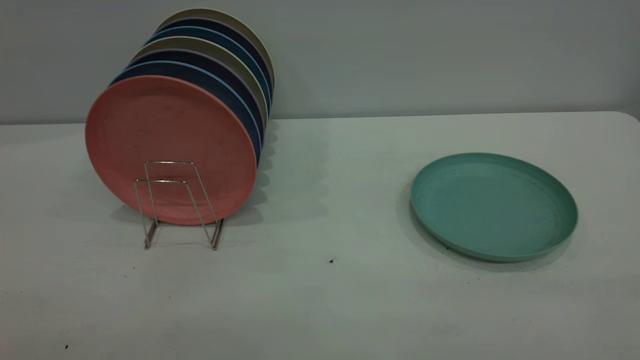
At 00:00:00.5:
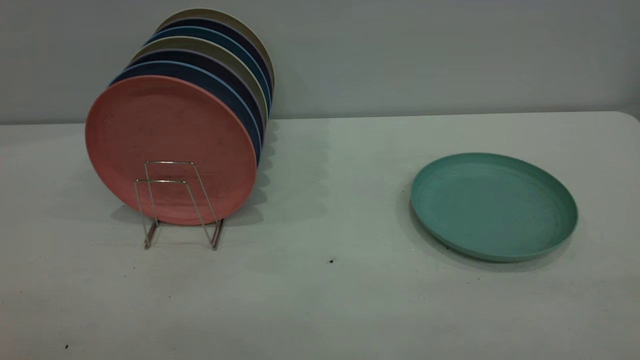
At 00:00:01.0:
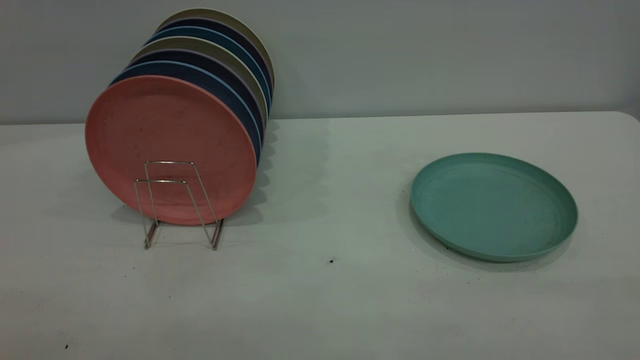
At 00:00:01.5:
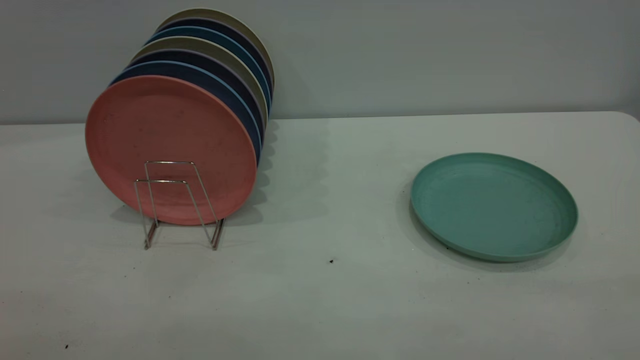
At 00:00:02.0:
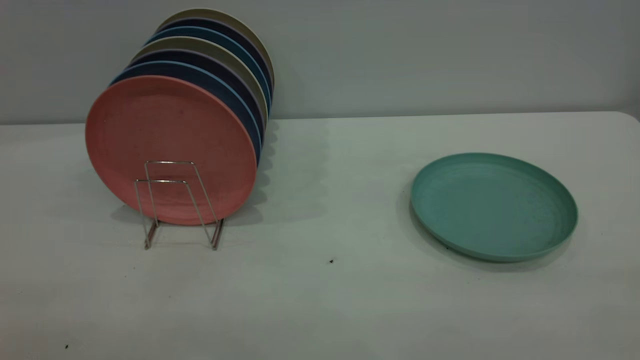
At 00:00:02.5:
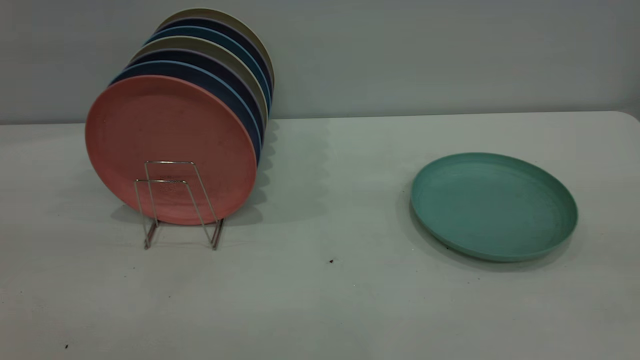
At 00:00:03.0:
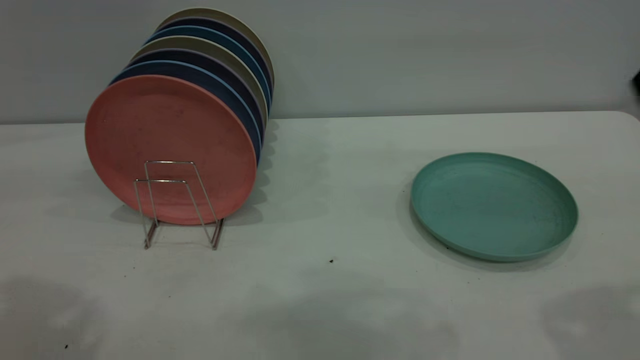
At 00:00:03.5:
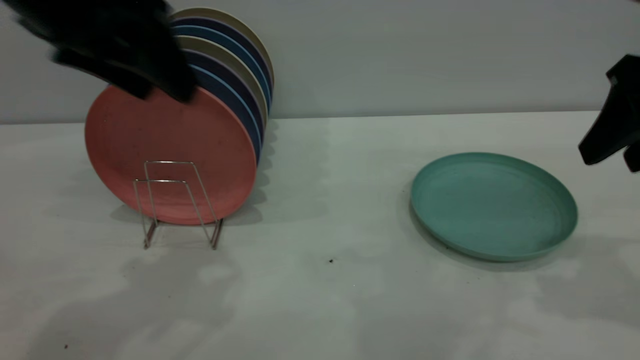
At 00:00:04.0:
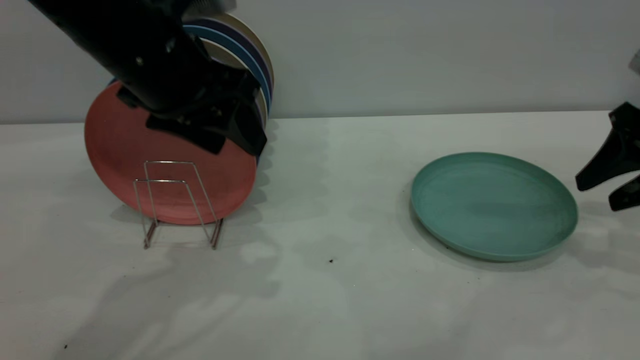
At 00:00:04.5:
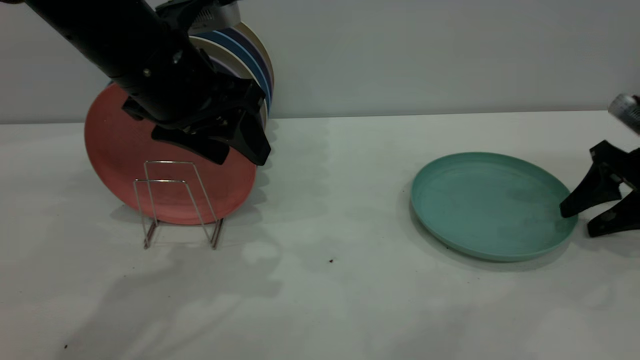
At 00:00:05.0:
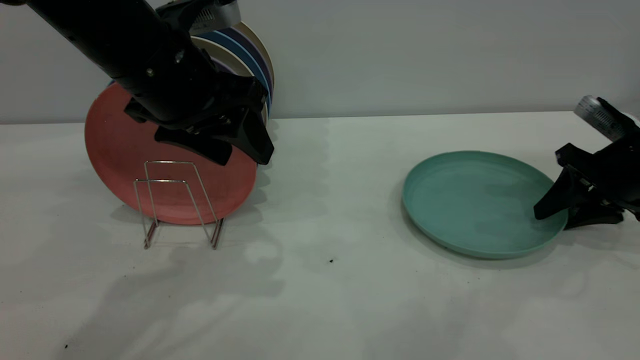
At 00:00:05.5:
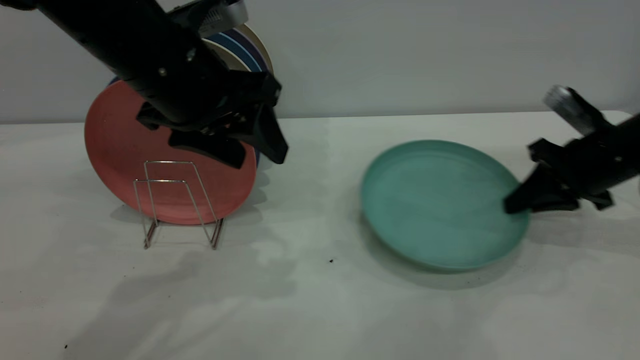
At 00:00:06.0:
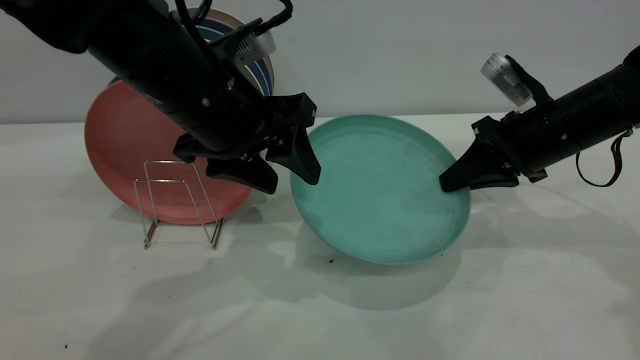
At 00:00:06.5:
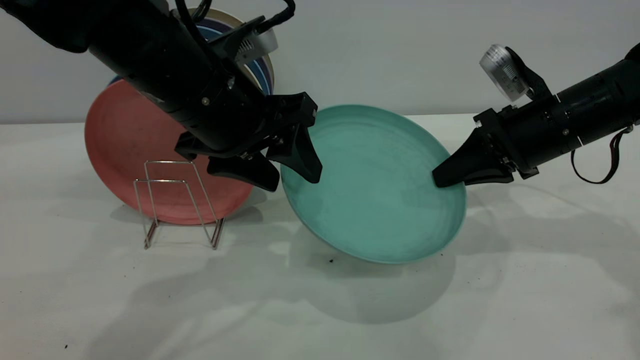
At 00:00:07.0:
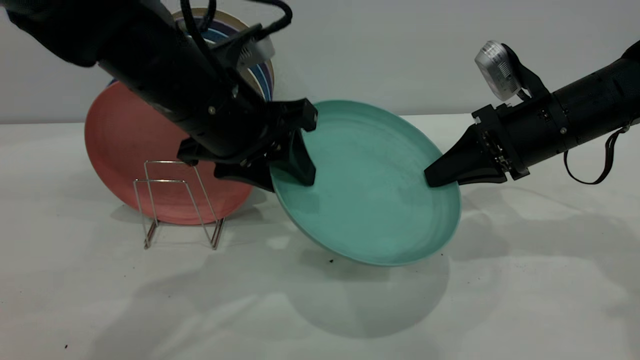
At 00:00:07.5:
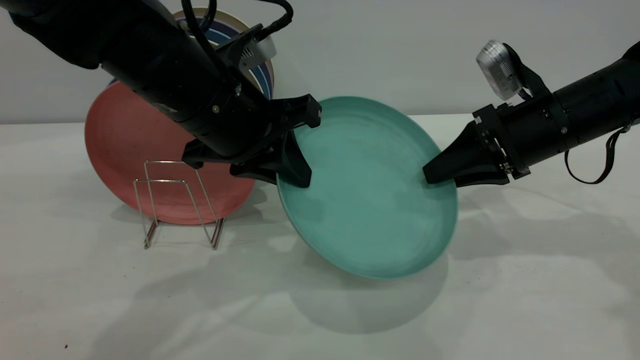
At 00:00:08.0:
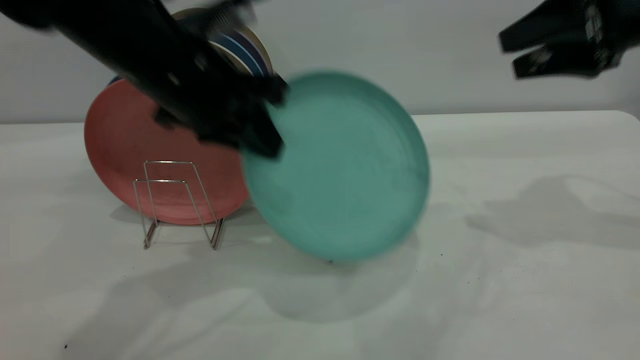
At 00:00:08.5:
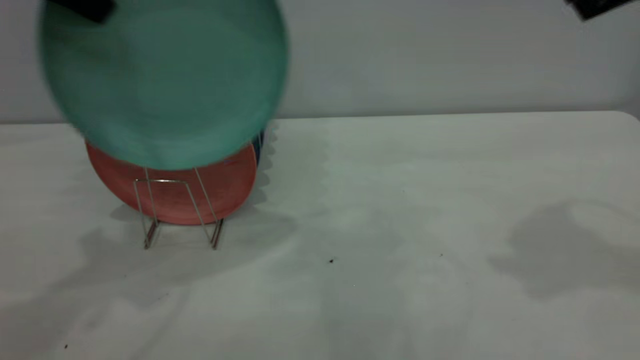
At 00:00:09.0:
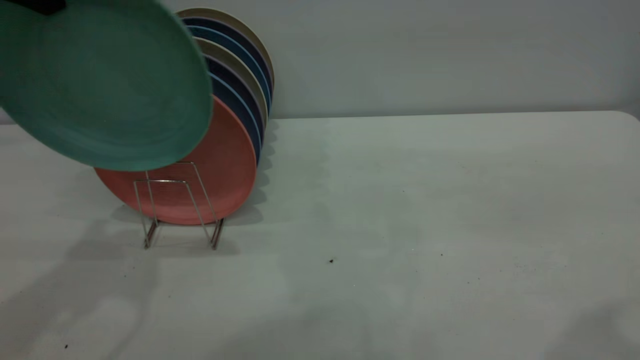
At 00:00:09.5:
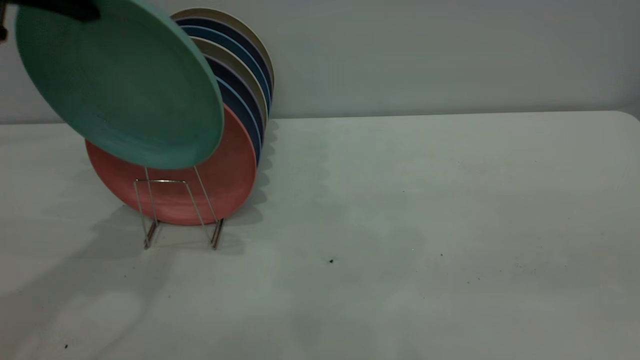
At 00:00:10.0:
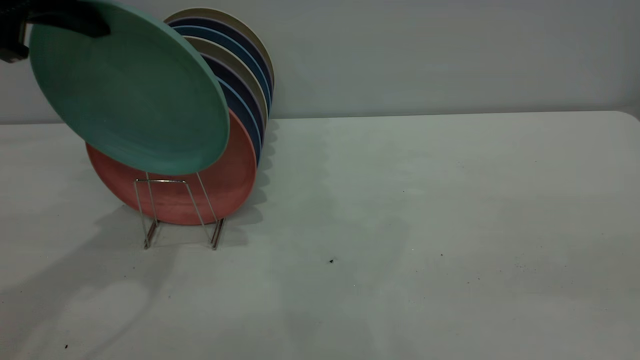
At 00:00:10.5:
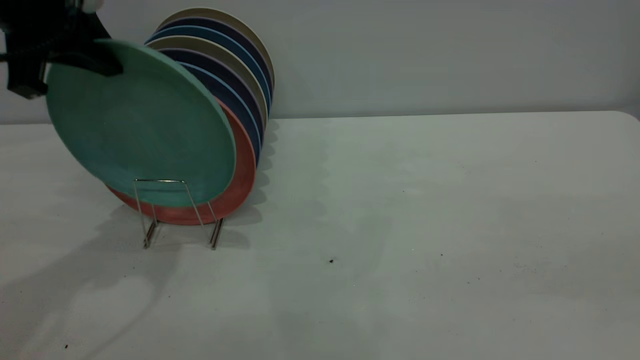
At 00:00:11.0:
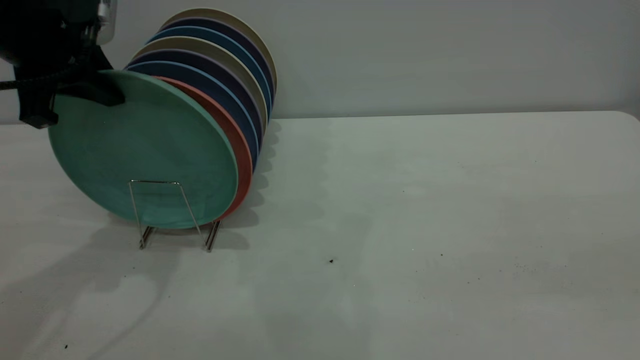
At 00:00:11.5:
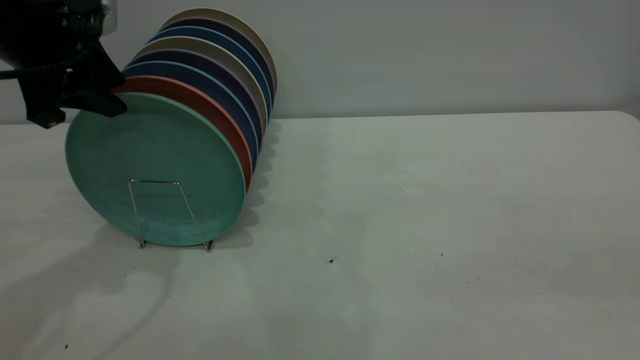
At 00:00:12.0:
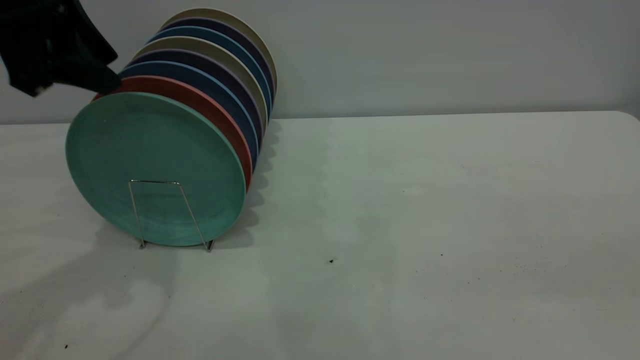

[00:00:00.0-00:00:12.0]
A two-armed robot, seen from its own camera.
Task of the whole recording: the right gripper grasp the green plate, the right gripper pass the green plate to the left gripper, and the left gripper place the green plate on the plate rack.
Step, 00:00:00.0 to 00:00:05.5: Pick up the plate with the right gripper.
Step, 00:00:06.0 to 00:00:07.5: Pass the plate from the right gripper to the left gripper.
00:00:02.0 to 00:00:04.0: The left gripper heads forward and to the right, covering some 40 cm. Meanwhile the right gripper heads forward and downward, covering roughly 40 cm.
00:00:04.0 to 00:00:06.0: The right gripper goes approximately 10 cm to the left, and closes.
00:00:06.0 to 00:00:08.0: The left gripper closes. Meanwhile the right gripper heads upward and to the right, covering about 15 cm, and opens its fingers.
00:00:08.0 to 00:00:10.0: The right gripper is displaced backward by roughly 30 cm; the left gripper goes approximately 15 cm to the left and upward.
00:00:10.0 to 00:00:12.0: The left gripper opens.

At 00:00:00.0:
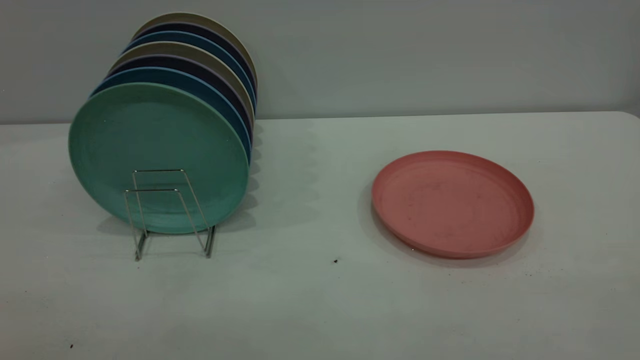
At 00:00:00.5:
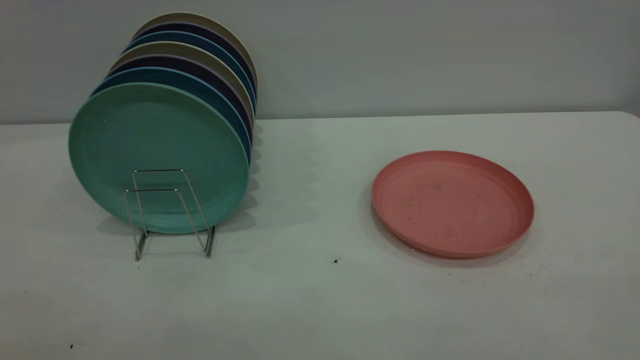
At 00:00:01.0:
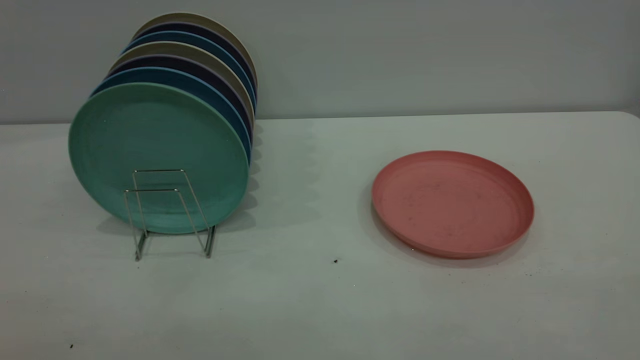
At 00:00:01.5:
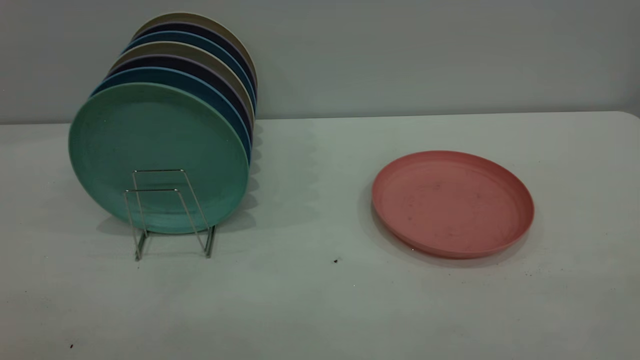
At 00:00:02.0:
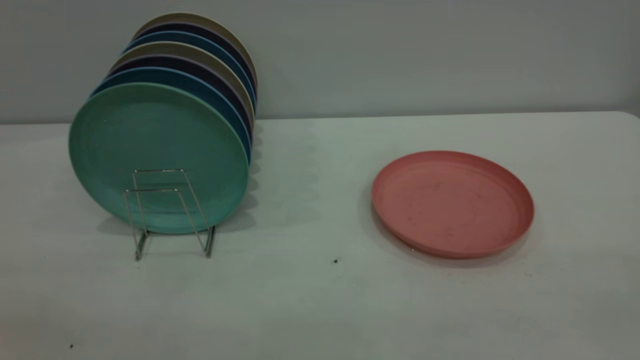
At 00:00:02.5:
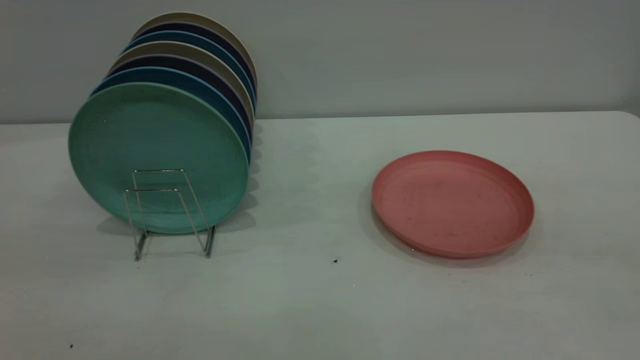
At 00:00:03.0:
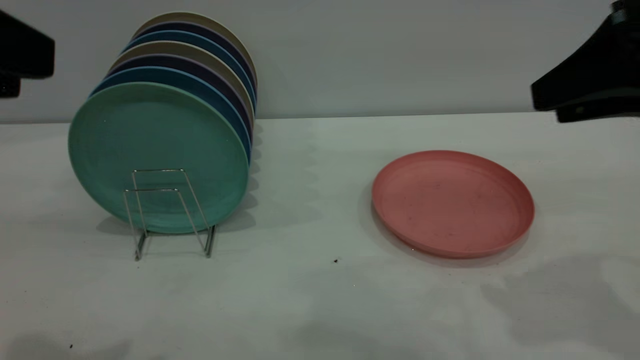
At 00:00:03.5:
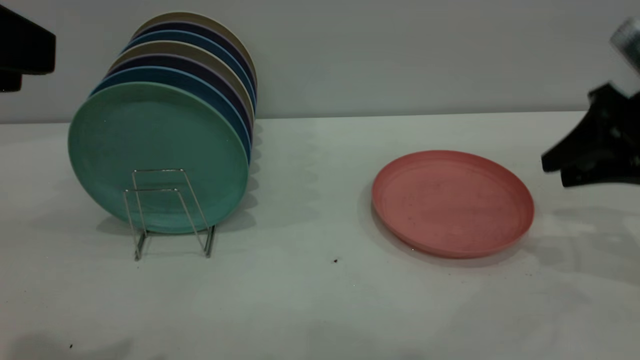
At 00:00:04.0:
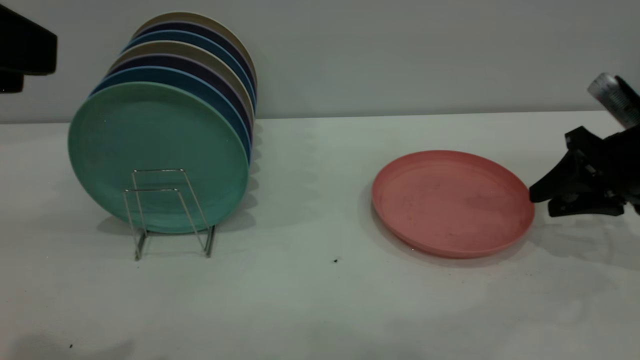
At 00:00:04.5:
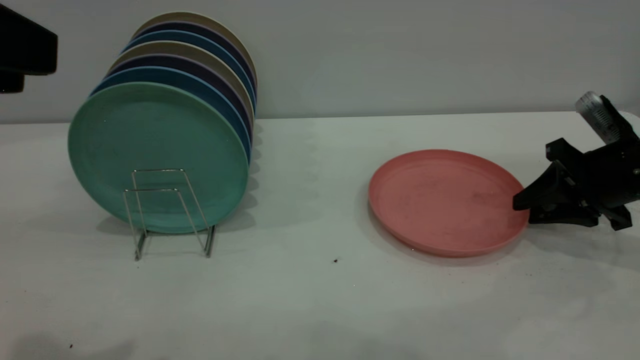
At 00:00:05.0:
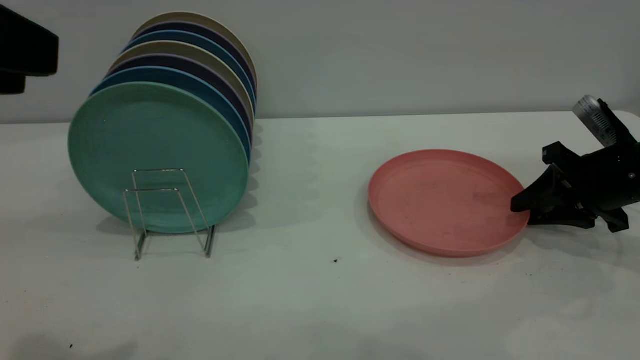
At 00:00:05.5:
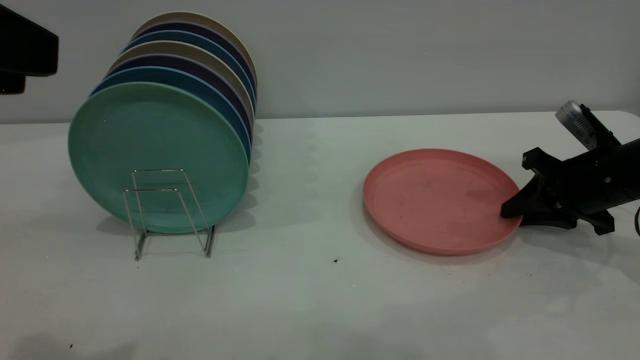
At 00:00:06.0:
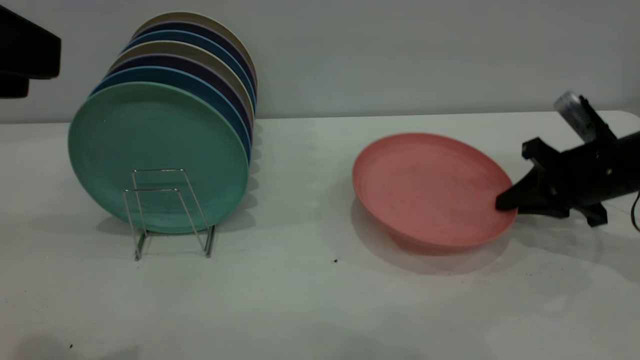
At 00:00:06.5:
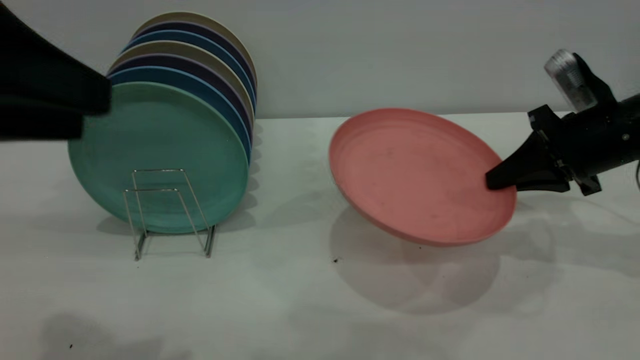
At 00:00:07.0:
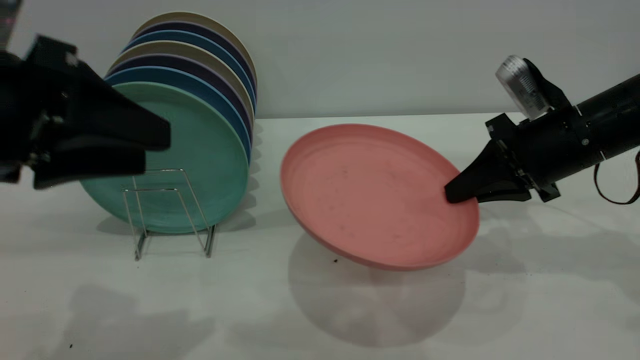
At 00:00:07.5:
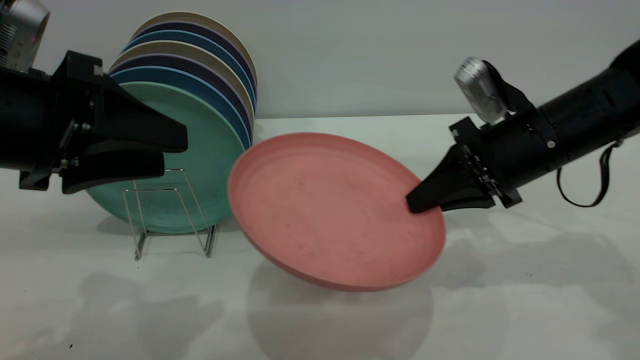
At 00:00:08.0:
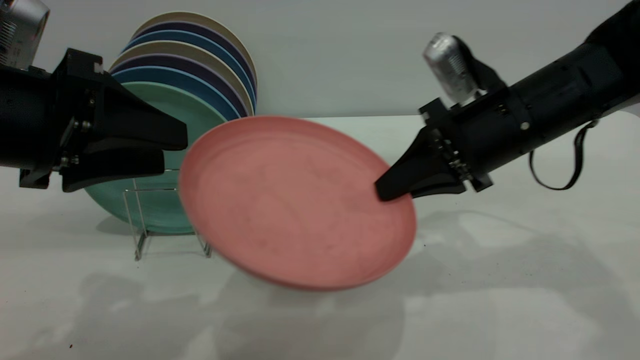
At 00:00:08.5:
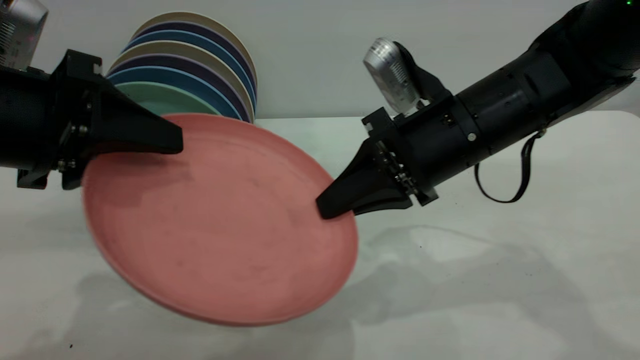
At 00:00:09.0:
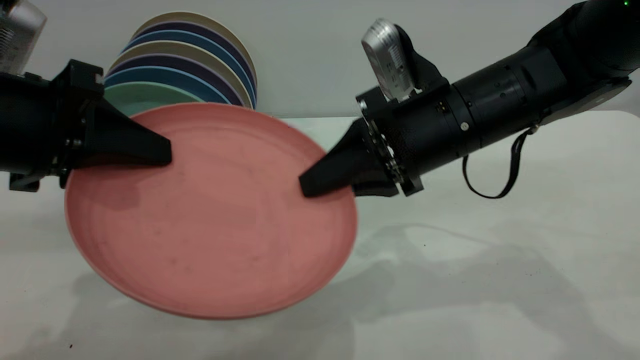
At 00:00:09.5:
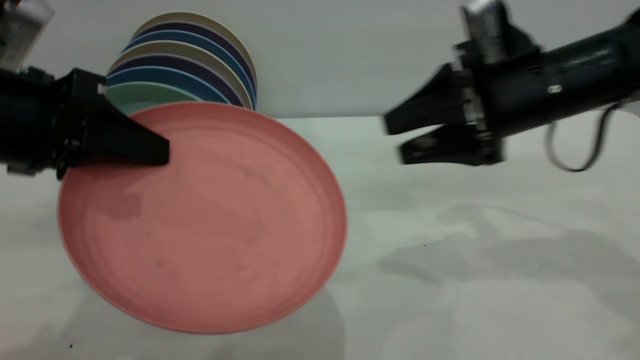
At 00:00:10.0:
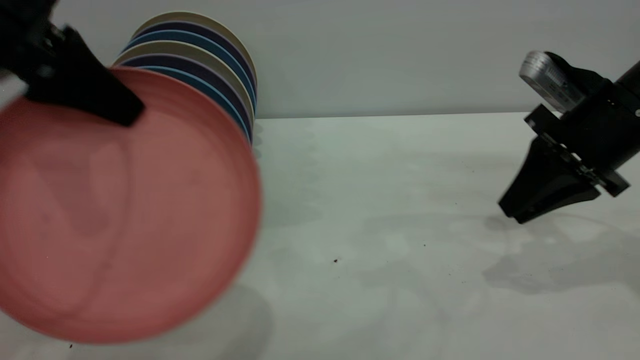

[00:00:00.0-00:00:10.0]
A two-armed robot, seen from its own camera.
Task of the whole recording: the right gripper grasp the pink plate, the right gripper pass the pink plate to the left gripper, and the left gripper place the pink plate on the plate rack.
Step, 00:00:00.0 to 00:00:06.0: Pick up the plate with the right gripper.
Step, 00:00:06.5 to 00:00:09.0: Pass the plate from the right gripper to the left gripper.
00:00:02.0 to 00:00:04.0: The left gripper goes roughly 15 cm forward, while the right gripper travels forward and downward by some 50 cm.
00:00:04.0 to 00:00:06.0: The right gripper closes its fingers.
00:00:06.0 to 00:00:08.0: The right gripper travels to the left and upward by some 15 cm; the left gripper travels downward and forward by some 15 cm.
00:00:08.0 to 00:00:10.0: The right gripper goes approximately 10 cm to the right, and opens and closes again. The left gripper goes roughly 10 cm upward and forward, and closes its fingers.
